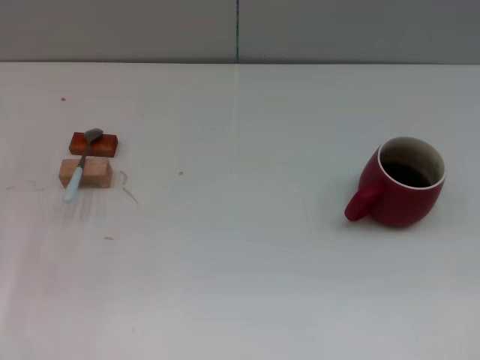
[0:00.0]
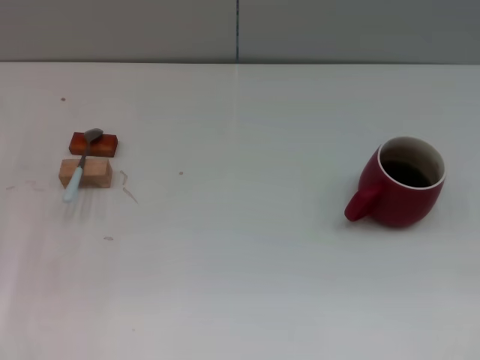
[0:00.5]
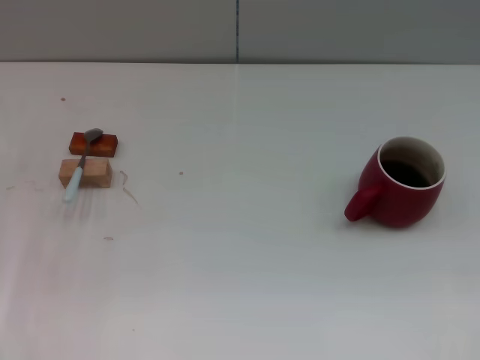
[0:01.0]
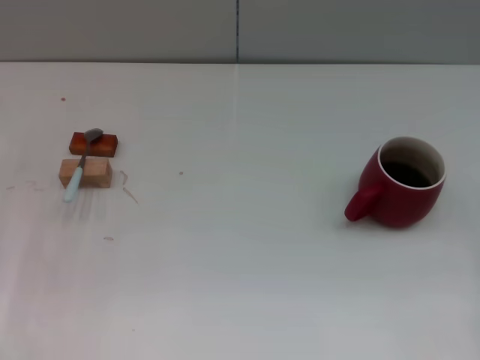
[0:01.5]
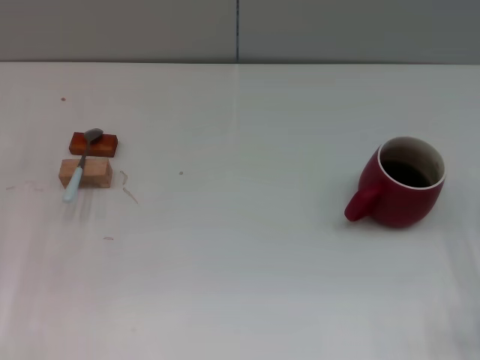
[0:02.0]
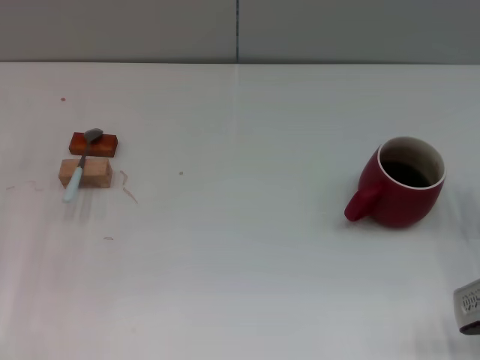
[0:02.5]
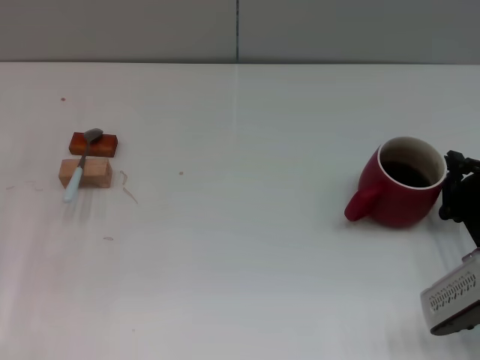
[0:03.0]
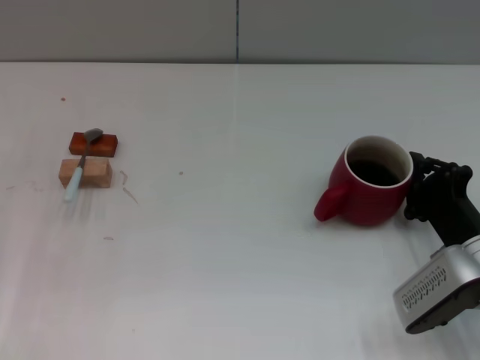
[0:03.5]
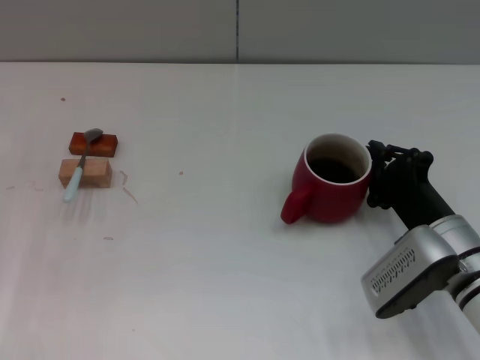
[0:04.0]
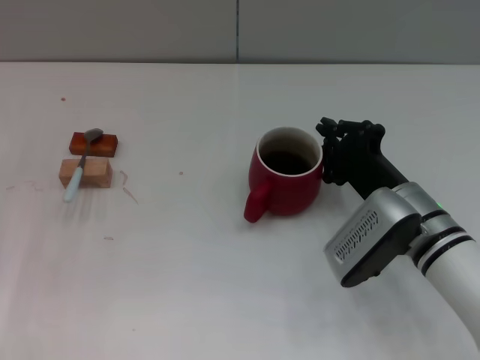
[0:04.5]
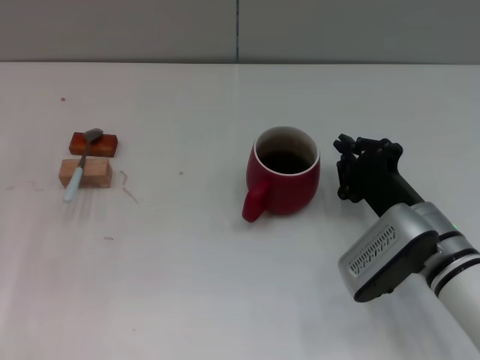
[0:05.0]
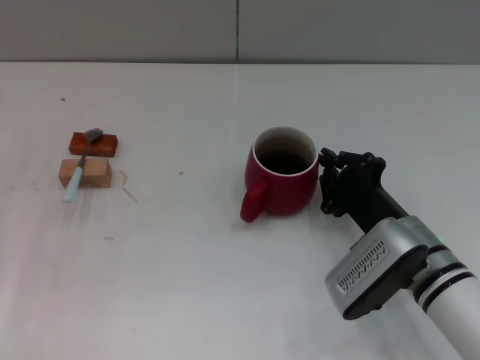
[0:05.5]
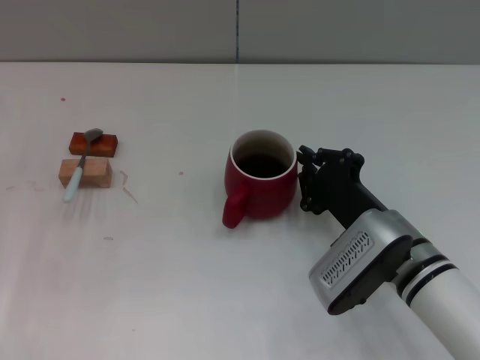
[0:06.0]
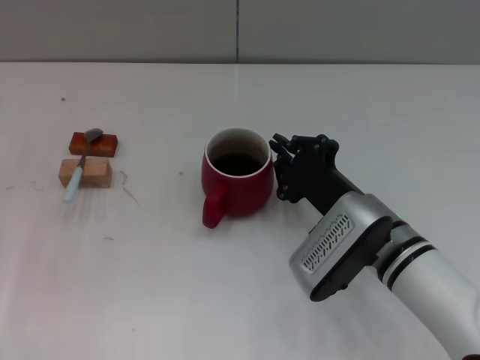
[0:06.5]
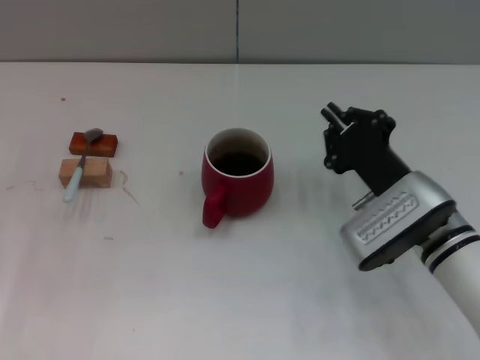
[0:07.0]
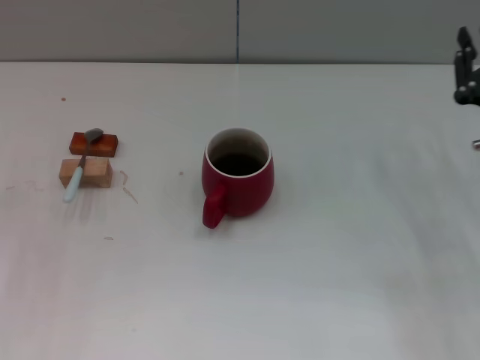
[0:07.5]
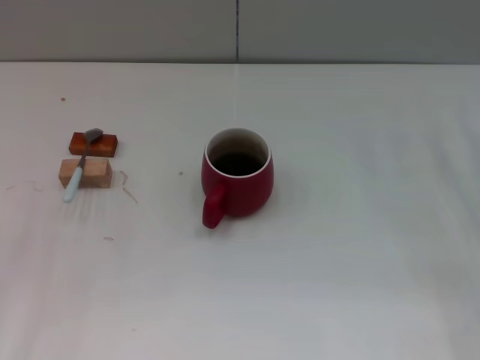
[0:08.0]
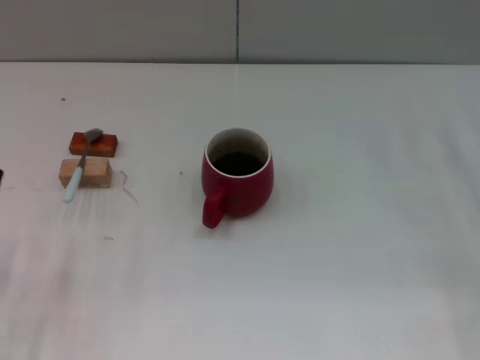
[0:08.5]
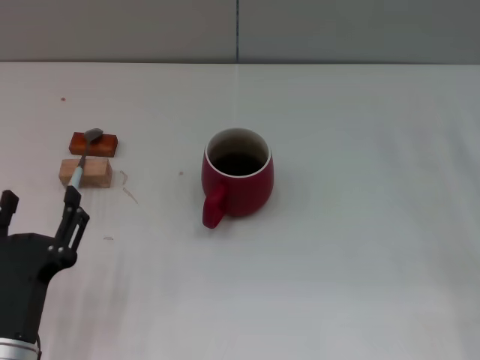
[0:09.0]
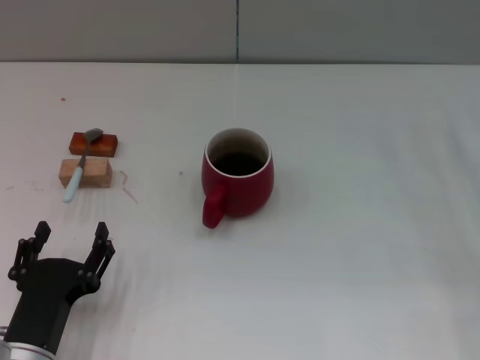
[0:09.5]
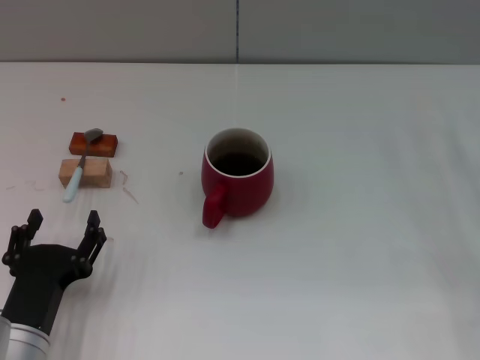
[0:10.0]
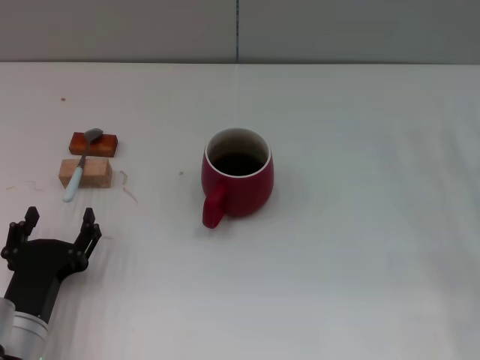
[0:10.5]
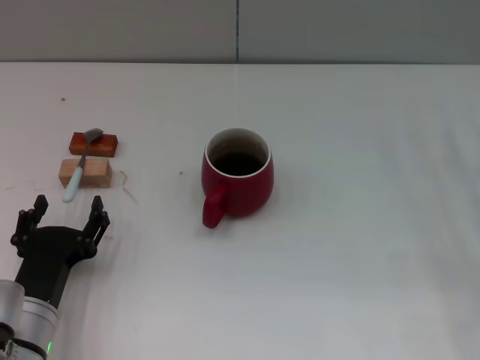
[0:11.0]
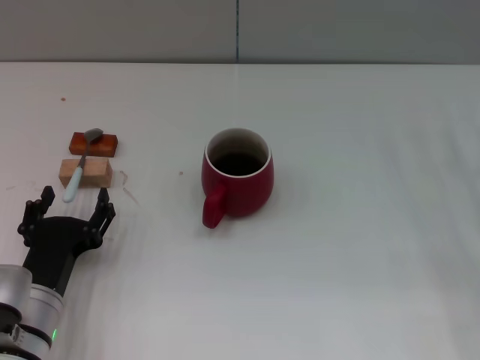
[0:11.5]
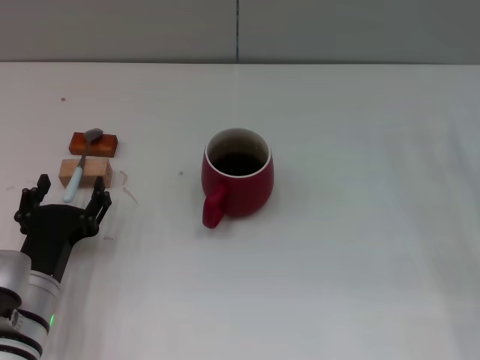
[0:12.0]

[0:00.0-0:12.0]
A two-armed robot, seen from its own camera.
Task of the whole recording: Move the red cup to the center, lift the blue spoon, stir it three times in the cup, and put the spoon into the cup.
Step, 0:00.0 to 0:06.5: Move the cup with coffee to the center of view with the right gripper.
0:02.0 to 0:04.0: The right gripper moves to the left, approximately 10 cm.
0:04.0 to 0:06.0: The right gripper travels to the left by approximately 5 cm.
0:06.0 to 0:08.0: The right gripper heads to the right, covering roughly 20 cm, and opens, while the left gripper moves backward, about 10 cm.
0:08.0 to 0:10.0: The left gripper heads to the right, backward and downward, covering about 15 cm.
0:10.0 to 0:12.0: The left gripper travels forward by approximately 5 cm.

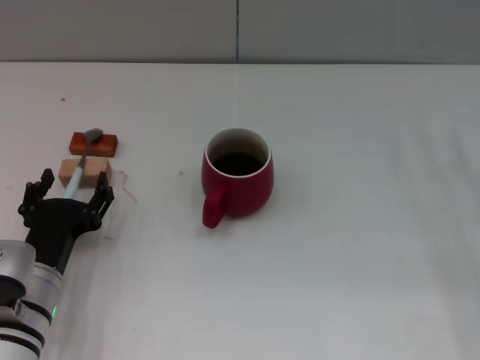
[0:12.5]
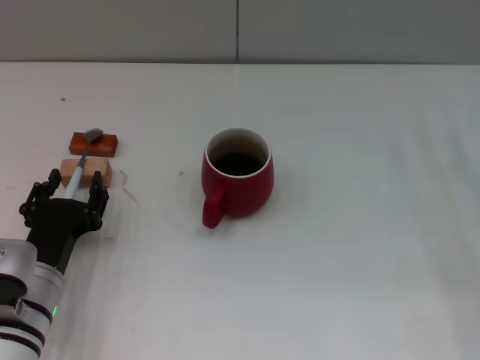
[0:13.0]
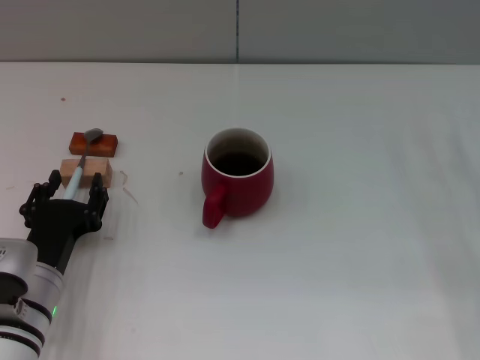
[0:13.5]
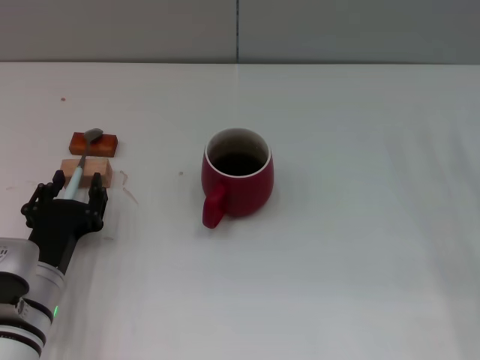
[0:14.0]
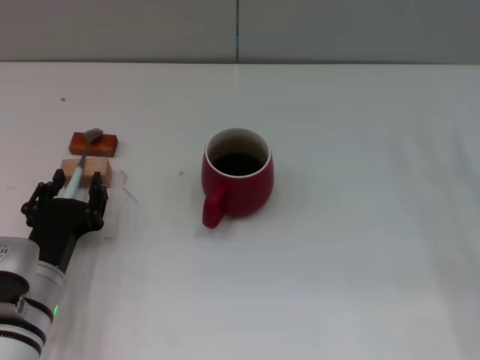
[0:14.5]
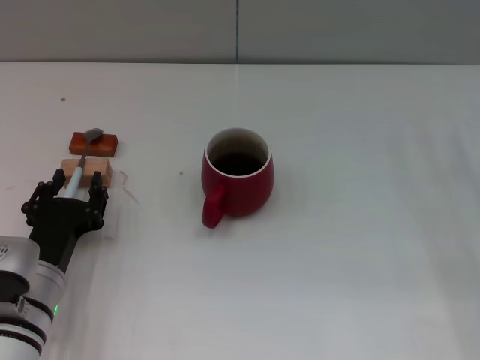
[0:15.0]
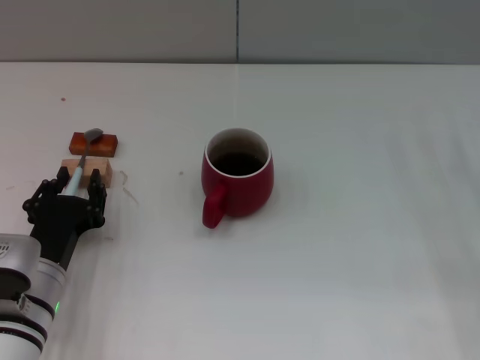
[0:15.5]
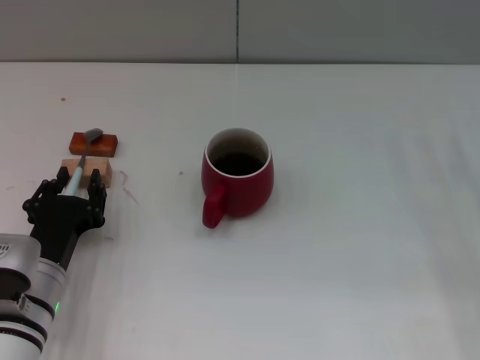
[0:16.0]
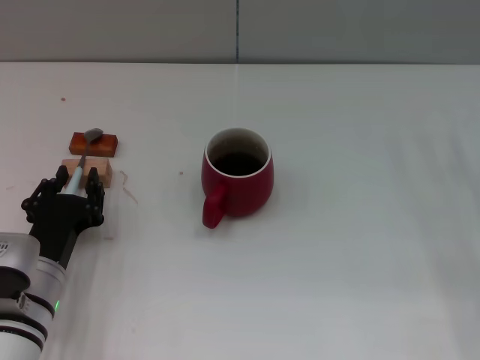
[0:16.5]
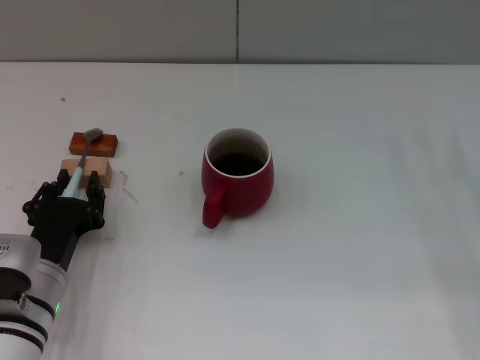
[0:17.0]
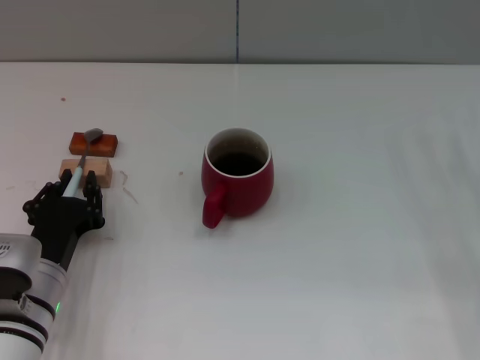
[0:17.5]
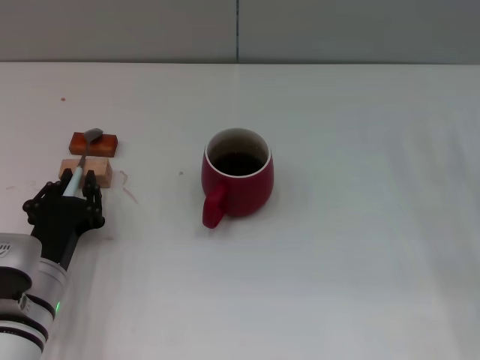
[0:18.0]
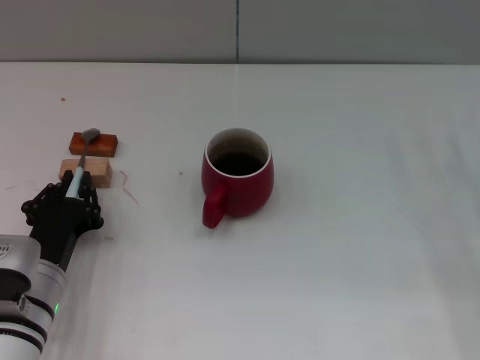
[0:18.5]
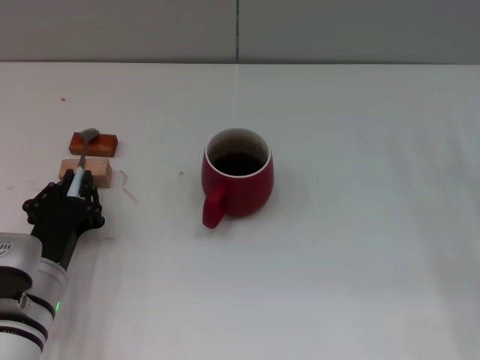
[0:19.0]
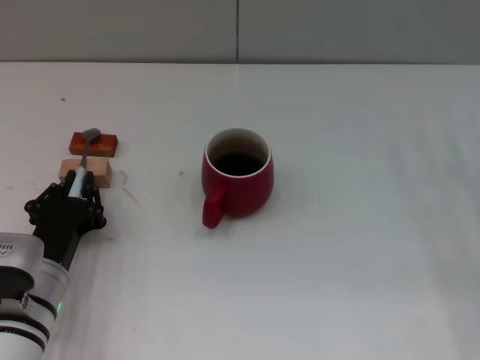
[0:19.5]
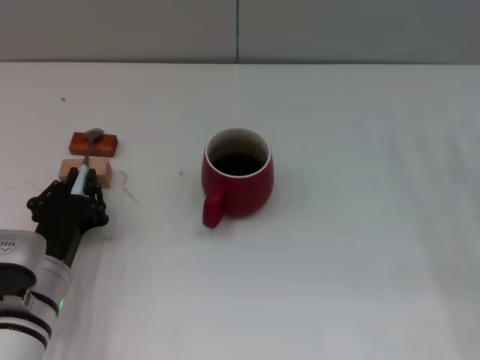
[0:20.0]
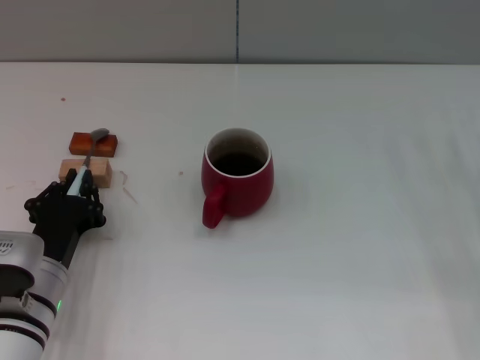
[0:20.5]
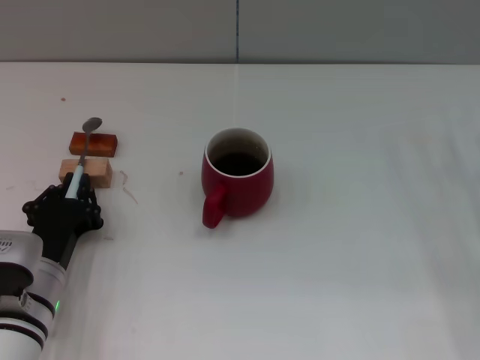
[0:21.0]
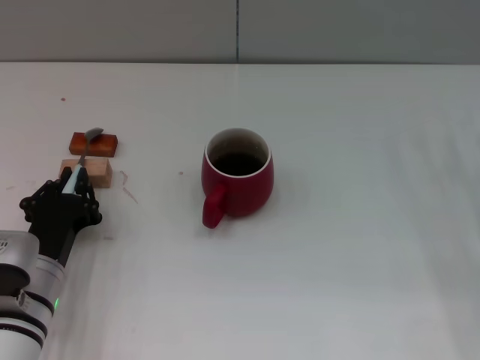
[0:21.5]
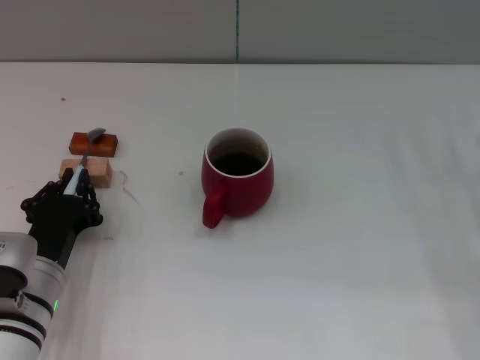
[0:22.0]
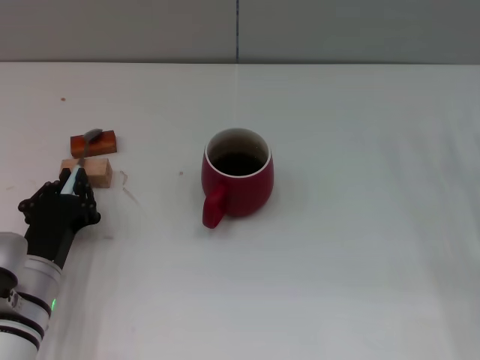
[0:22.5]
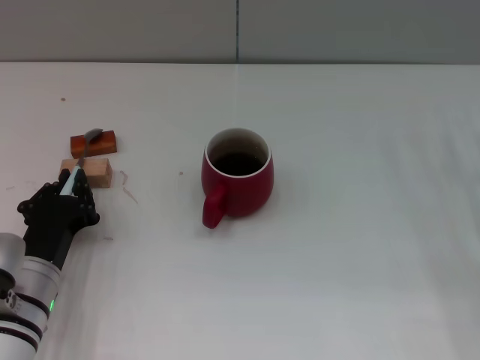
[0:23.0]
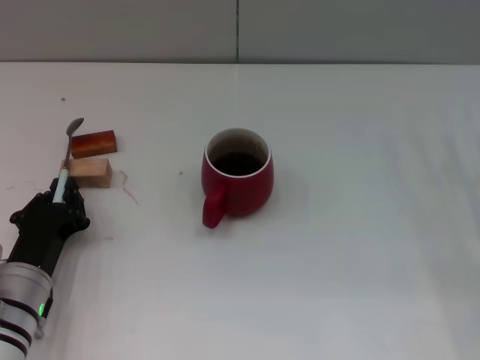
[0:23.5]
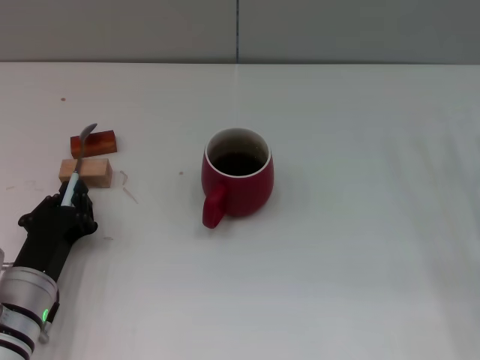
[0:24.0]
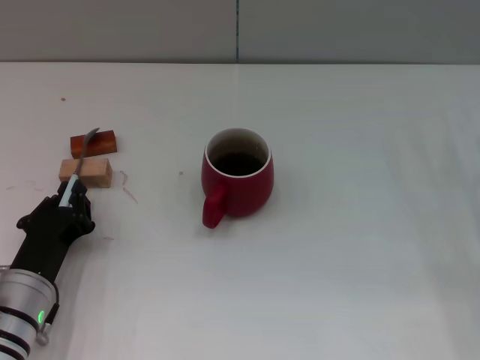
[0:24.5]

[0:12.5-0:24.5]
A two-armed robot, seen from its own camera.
Task of the whole recording: Move the red cup to the center, lift the blue spoon, stir it three times in the cup, and put the spoon into the cup.
0:12.5 to 0:20.5: Both grippers stay put.
0:20.5 to 0:24.5: There are only small adjustments of the grippers.

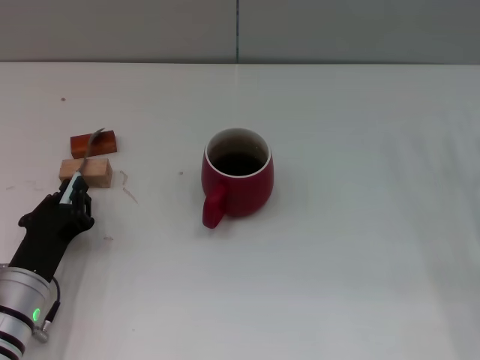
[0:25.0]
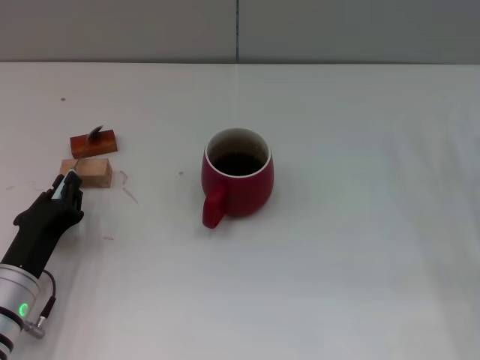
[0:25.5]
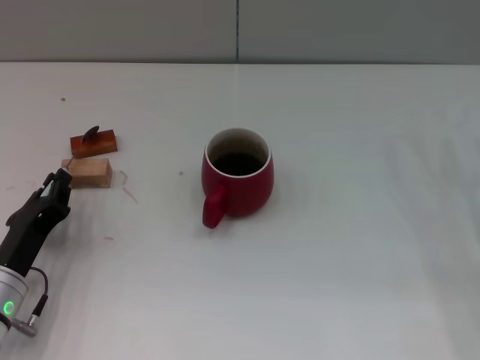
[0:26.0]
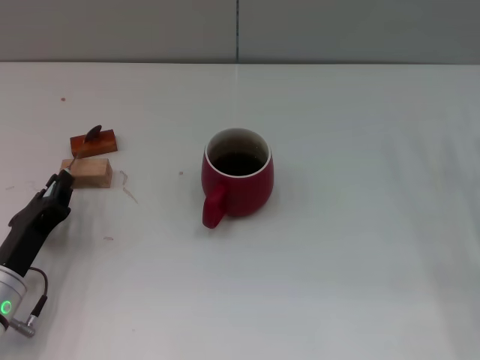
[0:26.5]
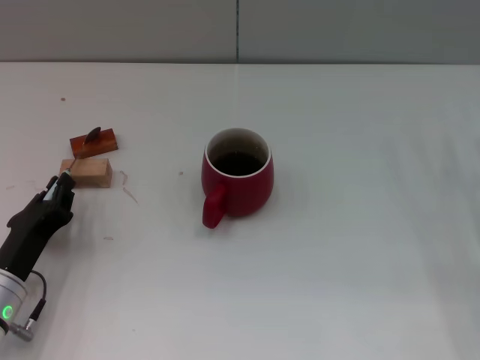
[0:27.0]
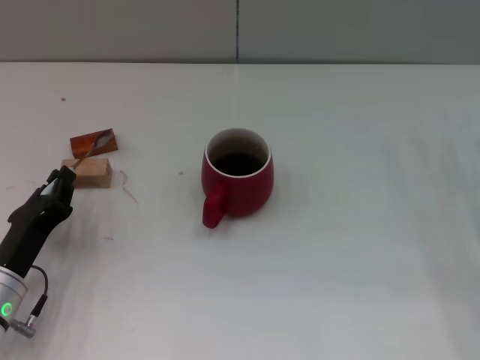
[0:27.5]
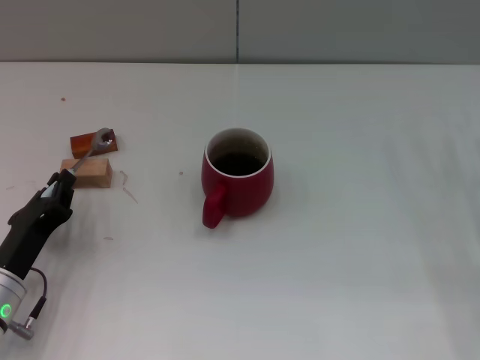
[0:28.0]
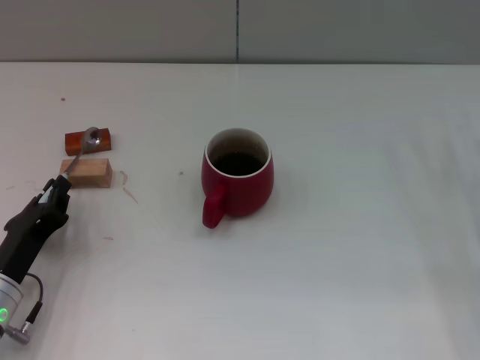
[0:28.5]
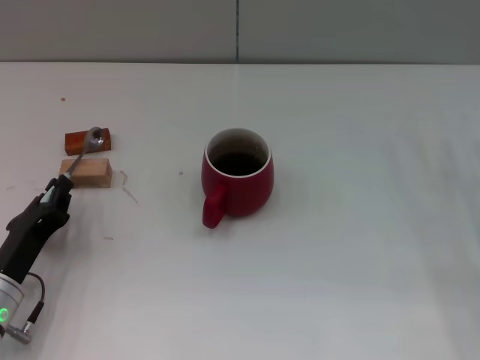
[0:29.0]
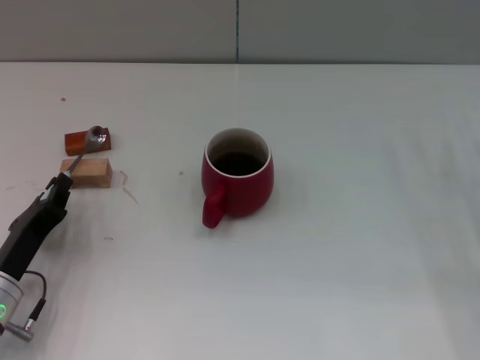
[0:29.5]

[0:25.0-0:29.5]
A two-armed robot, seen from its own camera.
Task of the whole recording: Move the red cup to the center, lift the blue spoon, stir it three times in the cup, and put the spoon into the cup.
0:25.0 to 0:27.0: The grippers make only small movements.
0:27.0 to 0:29.5: There are only small adjustments of the grippers.
